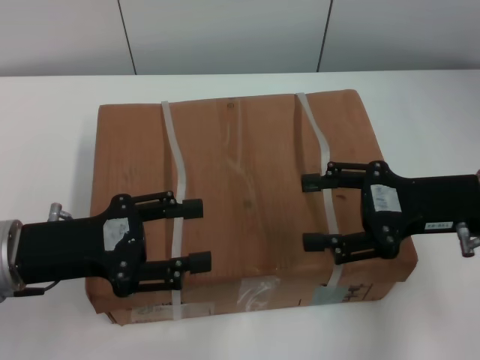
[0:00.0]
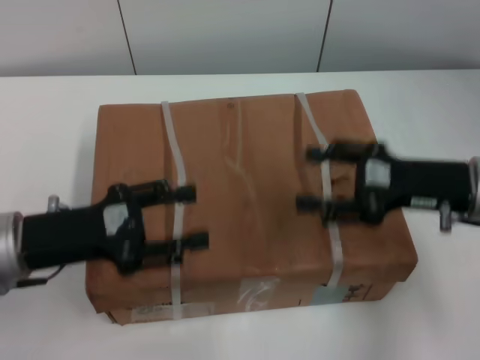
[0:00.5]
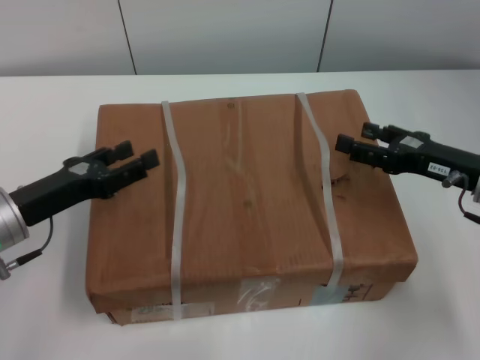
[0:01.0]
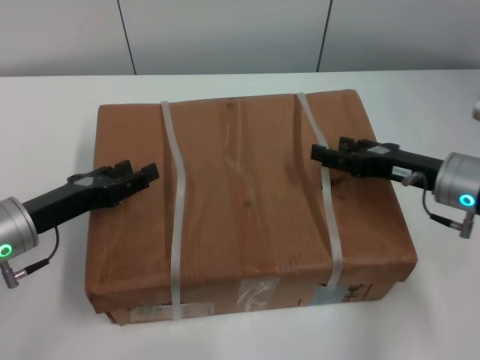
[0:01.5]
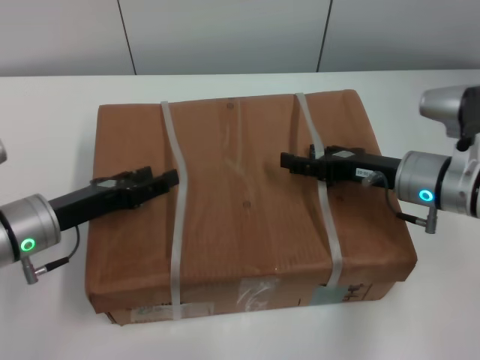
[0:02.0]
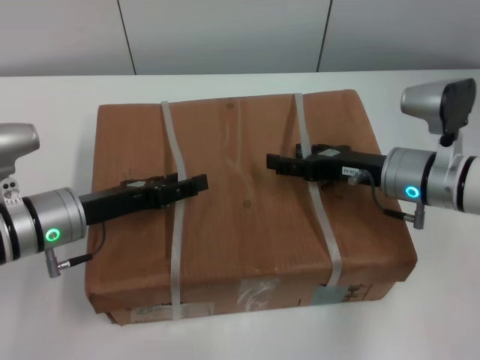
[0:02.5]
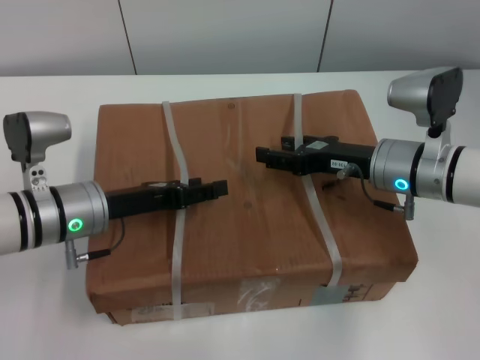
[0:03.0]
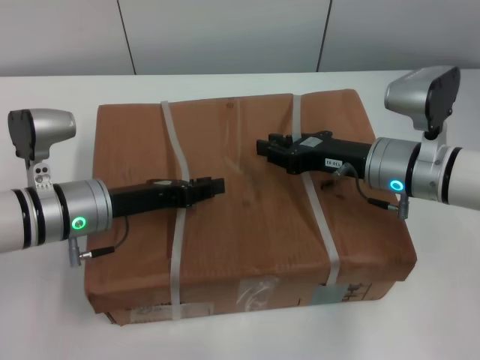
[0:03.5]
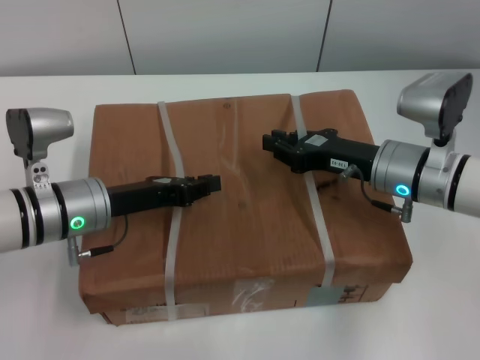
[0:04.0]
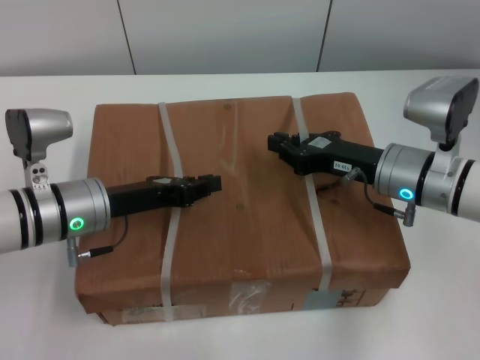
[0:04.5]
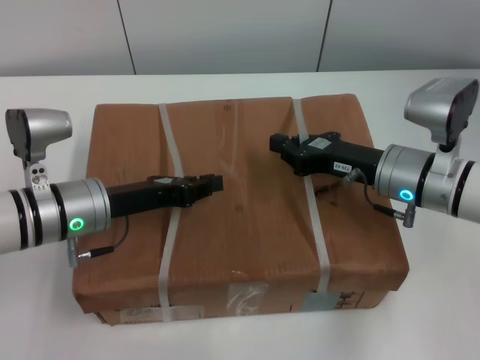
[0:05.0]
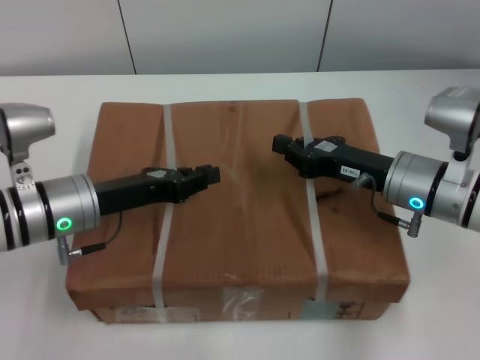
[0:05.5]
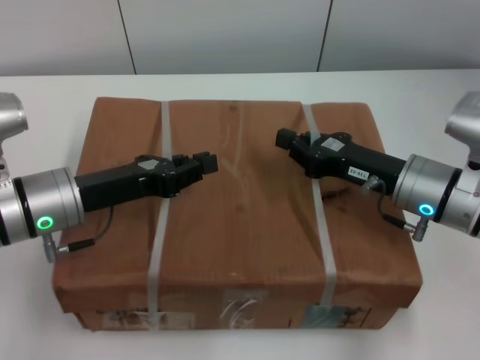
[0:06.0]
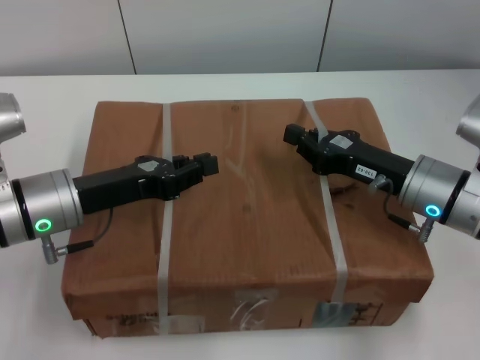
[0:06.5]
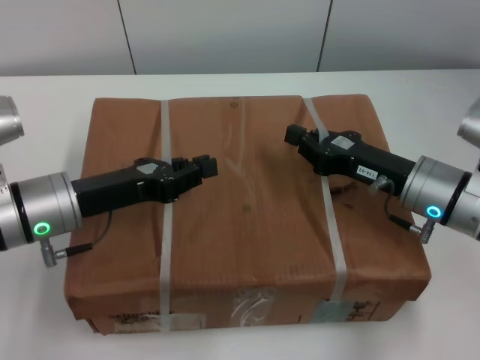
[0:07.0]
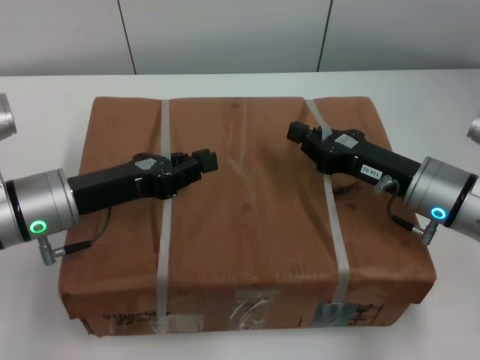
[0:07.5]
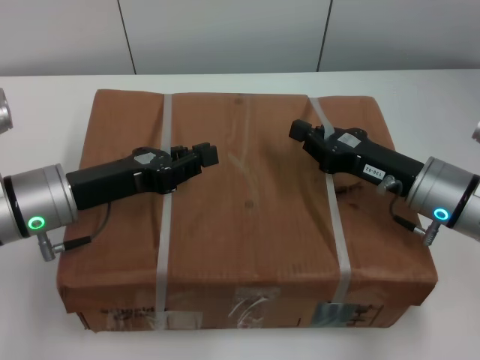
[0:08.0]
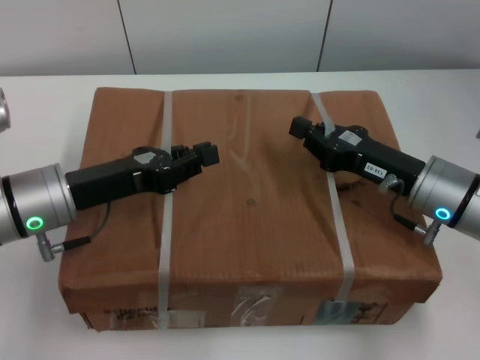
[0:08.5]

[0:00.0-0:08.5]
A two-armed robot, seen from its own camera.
Task of the whole recording: pick up the box from the table with both arms.
Step, 0:00.0 to 0:04.5: Grasp the bandage with left gripper.
Step, 0:00.0 to 0:04.5: Grasp the bandage with right gripper.
Step, 0:05.0 to 0:06.0: Lift the box with left gripper.
Step, 0:05.0 to 0:06.0: Lift the box with right gripper.
0:00.0 to 0:02.0: The right gripper shifts roughly 10 cm downward and forward; the left gripper heads downward, covering approximately 5 cm.
0:02.0 to 0:04.0: The right gripper closes up. Meanwhile the left gripper ends up approximately 5 cm from where it was, and closes up.
0:06.5 to 0:08.5: The two grippers keep their place.
